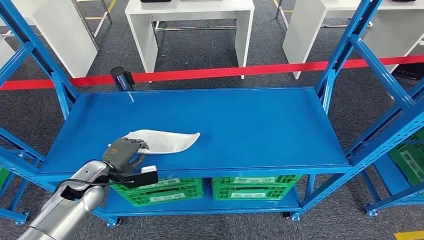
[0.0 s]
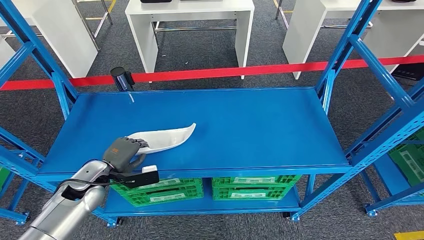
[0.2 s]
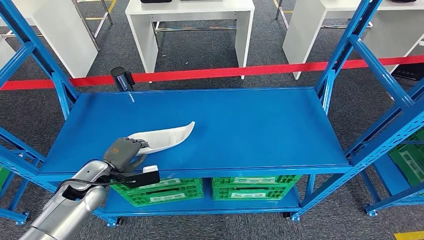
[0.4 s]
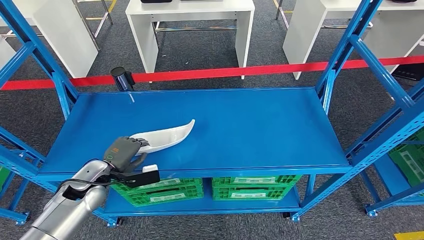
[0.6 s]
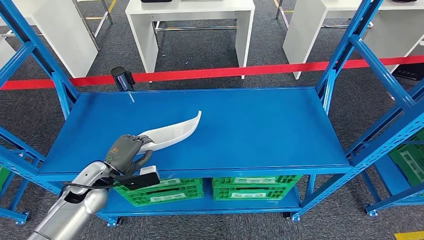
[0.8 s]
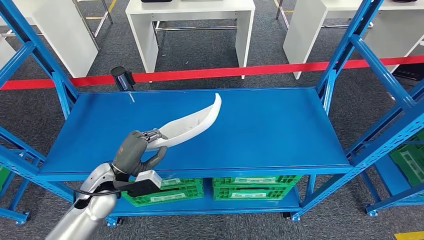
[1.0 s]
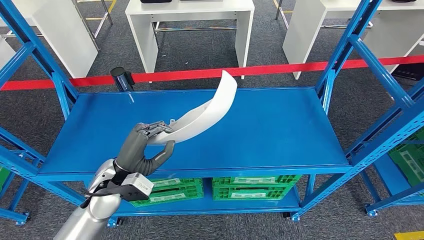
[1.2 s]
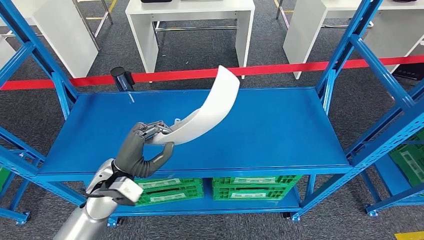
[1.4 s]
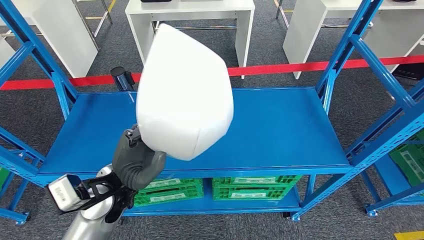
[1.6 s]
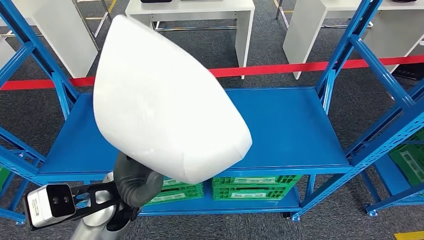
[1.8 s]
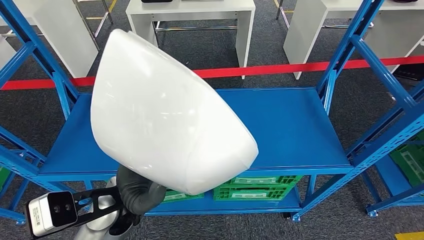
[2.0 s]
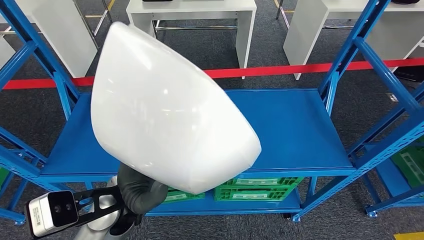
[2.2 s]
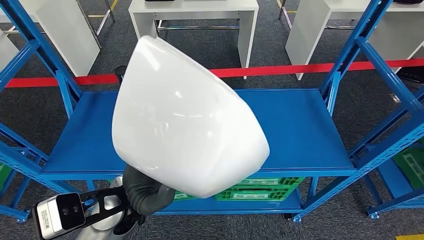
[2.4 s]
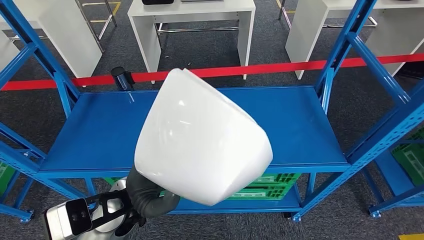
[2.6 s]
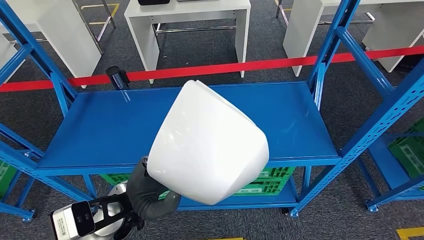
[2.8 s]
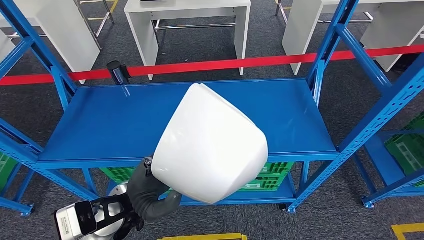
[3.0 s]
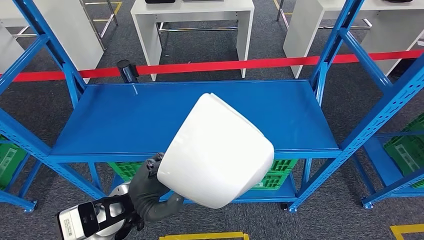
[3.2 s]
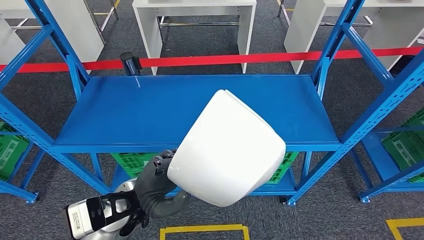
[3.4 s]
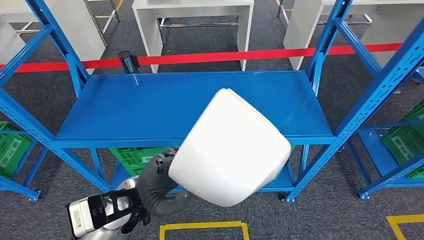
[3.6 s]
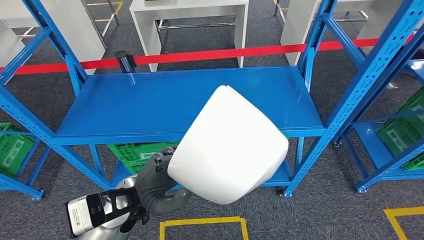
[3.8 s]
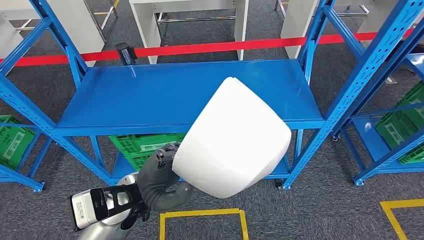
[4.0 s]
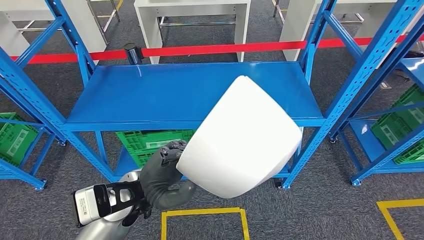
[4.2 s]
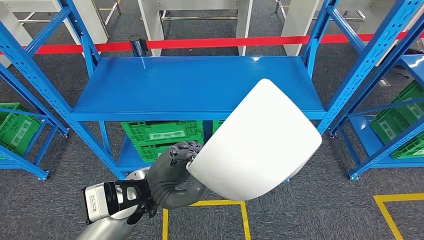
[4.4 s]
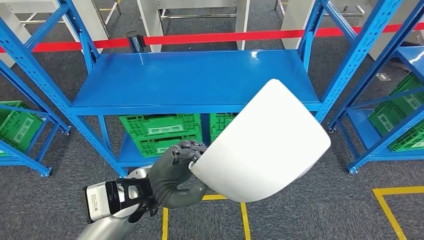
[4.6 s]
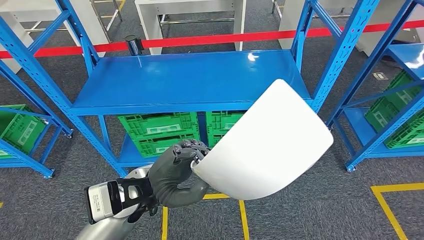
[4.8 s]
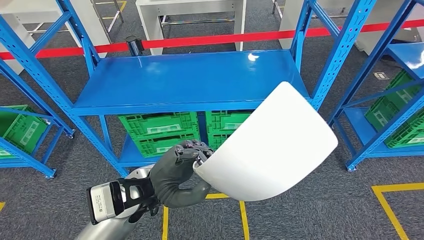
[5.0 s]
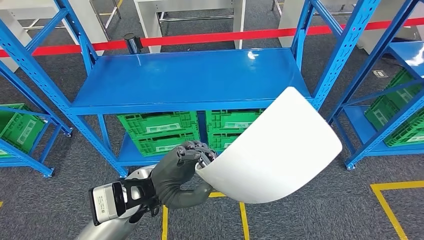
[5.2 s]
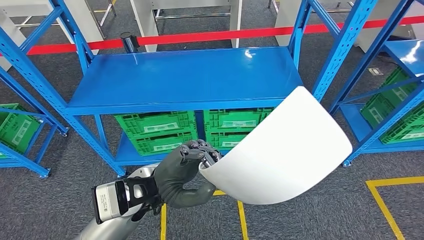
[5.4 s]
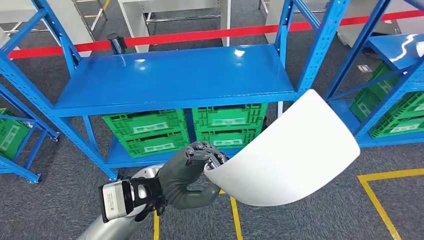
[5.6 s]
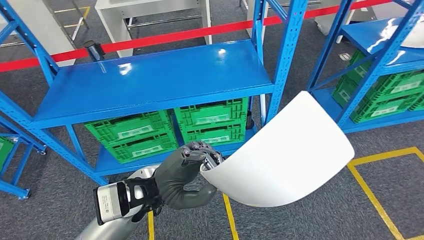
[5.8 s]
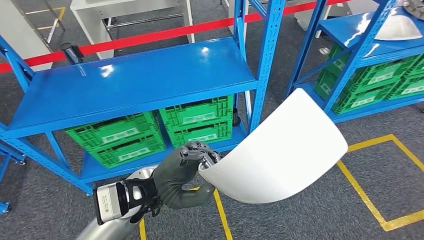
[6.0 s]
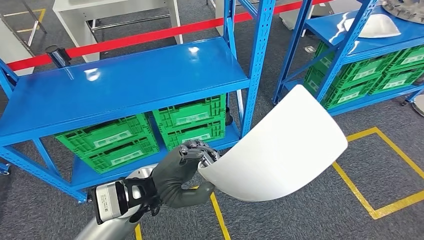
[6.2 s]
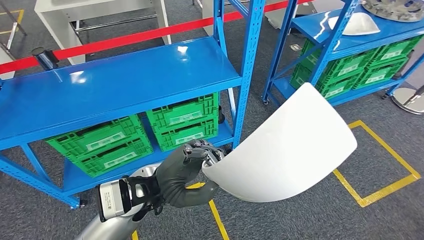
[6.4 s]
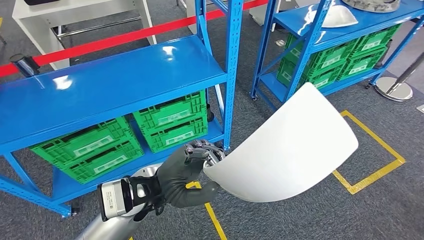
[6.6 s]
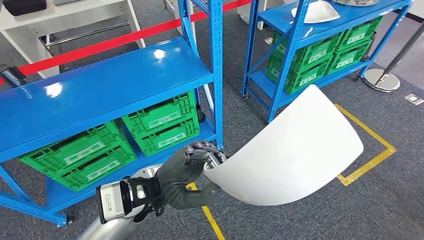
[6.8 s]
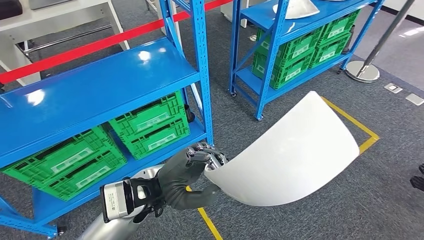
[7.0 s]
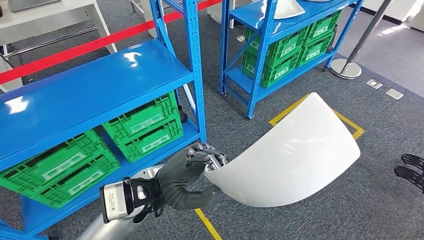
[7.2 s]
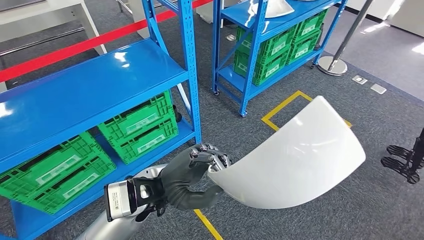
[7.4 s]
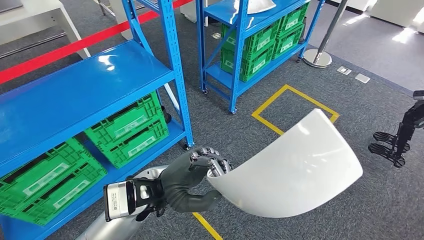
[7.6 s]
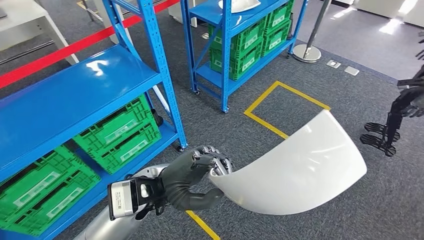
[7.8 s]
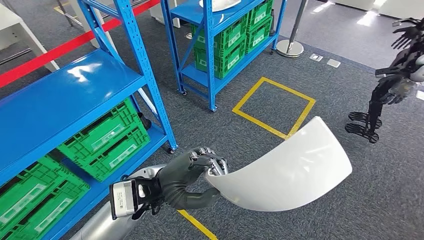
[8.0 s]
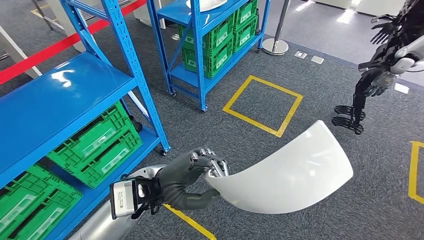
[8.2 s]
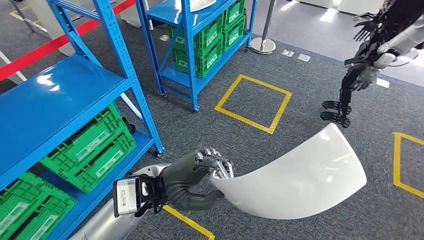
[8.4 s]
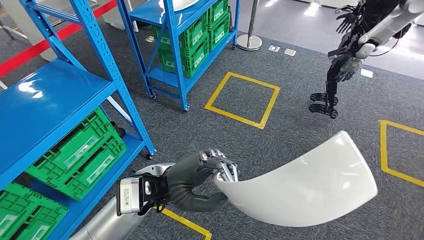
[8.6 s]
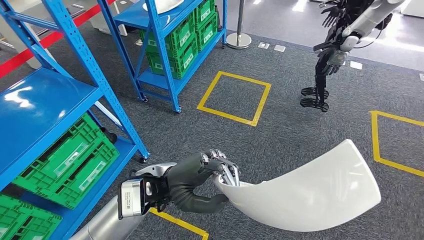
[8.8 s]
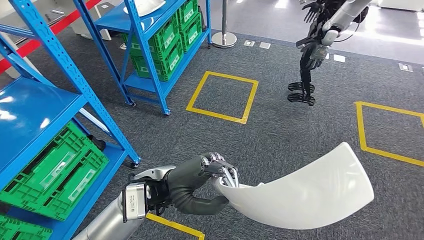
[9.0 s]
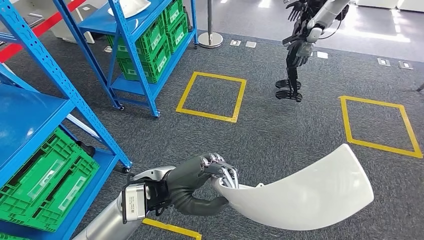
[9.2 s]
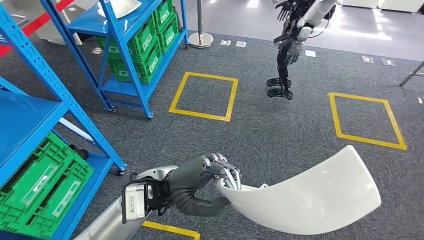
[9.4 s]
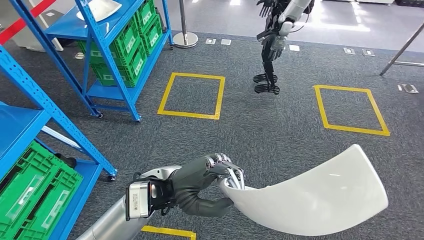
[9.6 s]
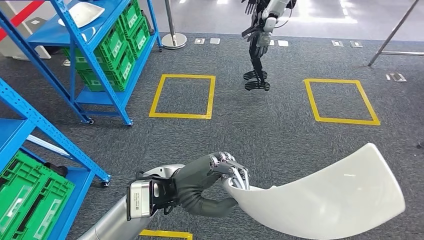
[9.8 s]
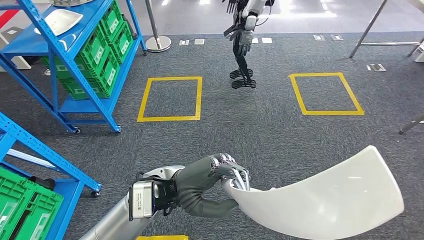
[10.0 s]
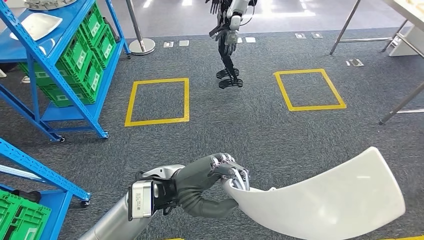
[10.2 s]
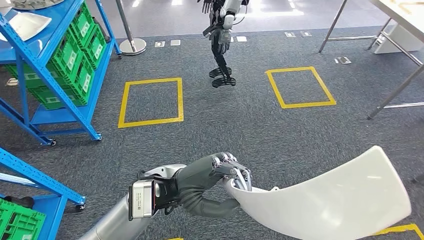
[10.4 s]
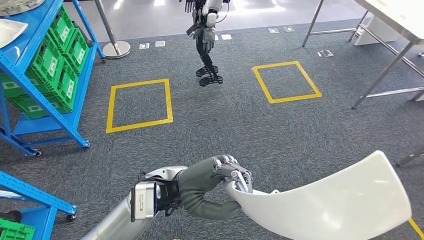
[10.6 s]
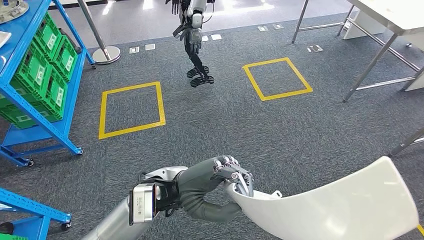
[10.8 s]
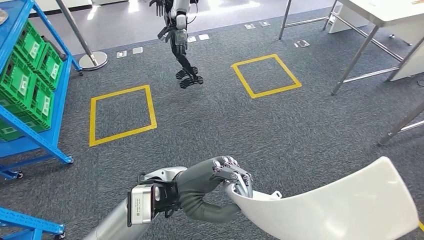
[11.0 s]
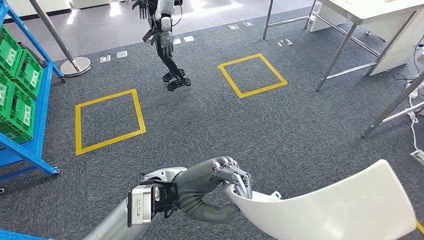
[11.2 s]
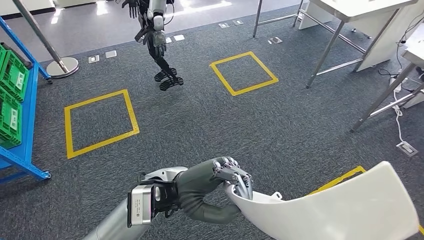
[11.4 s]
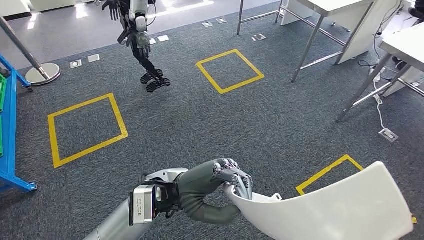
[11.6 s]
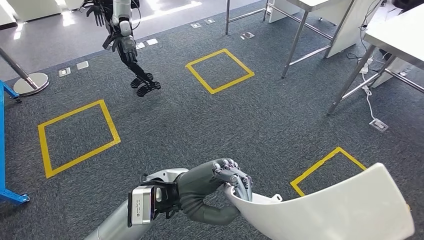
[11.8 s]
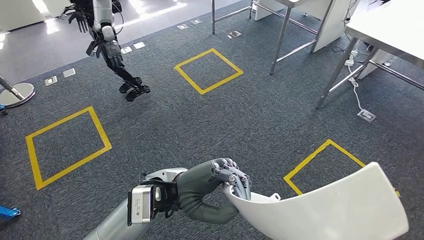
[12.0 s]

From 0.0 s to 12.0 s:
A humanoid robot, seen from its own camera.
Step, from 0.0 s to 2.2 s: Pick up the small parts from the shelf.

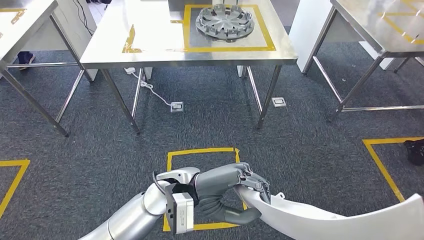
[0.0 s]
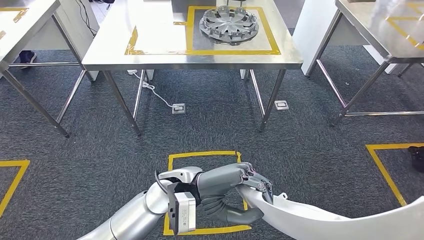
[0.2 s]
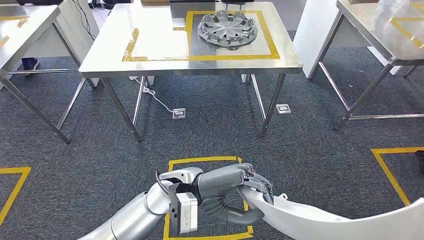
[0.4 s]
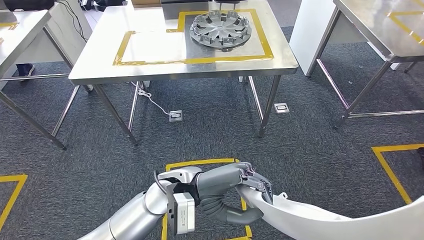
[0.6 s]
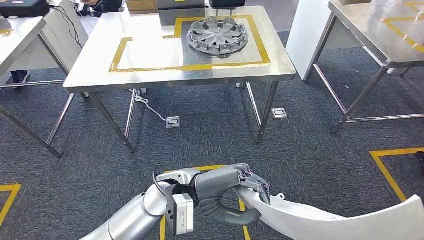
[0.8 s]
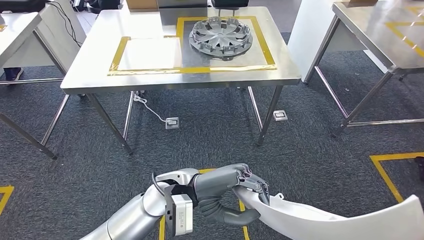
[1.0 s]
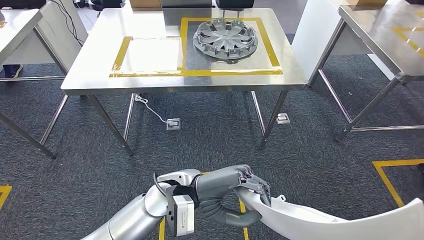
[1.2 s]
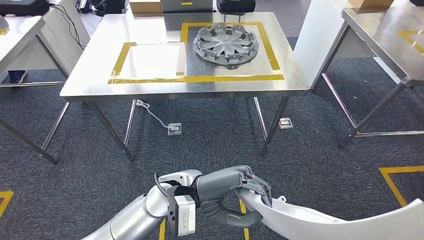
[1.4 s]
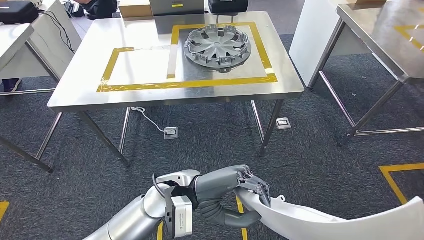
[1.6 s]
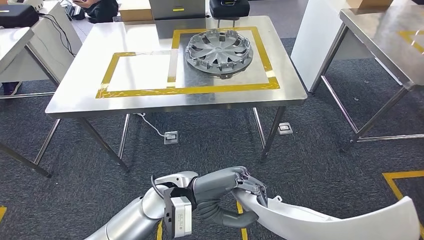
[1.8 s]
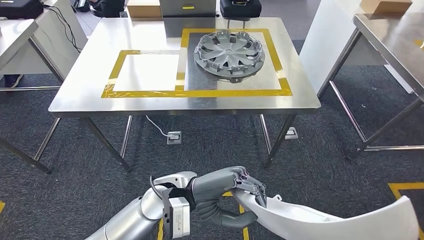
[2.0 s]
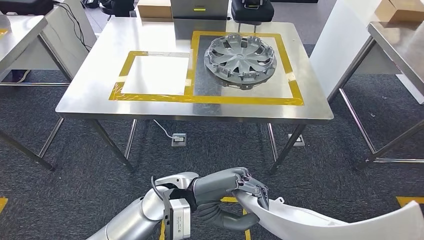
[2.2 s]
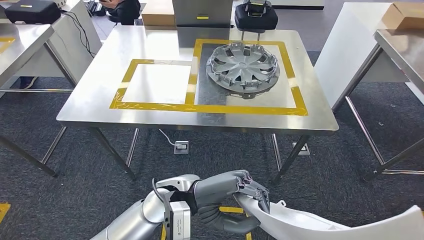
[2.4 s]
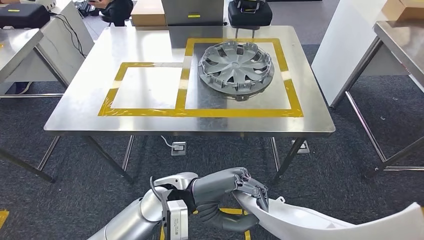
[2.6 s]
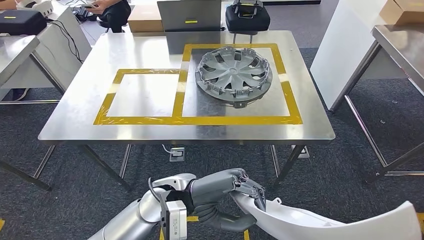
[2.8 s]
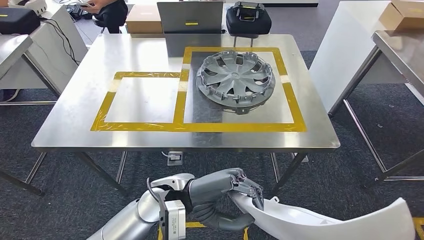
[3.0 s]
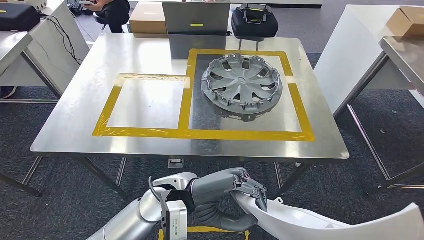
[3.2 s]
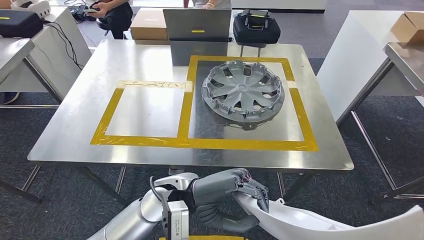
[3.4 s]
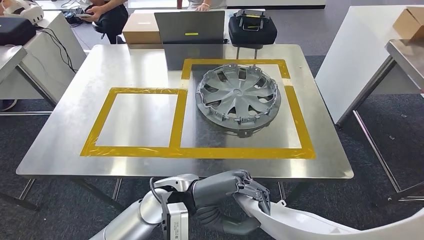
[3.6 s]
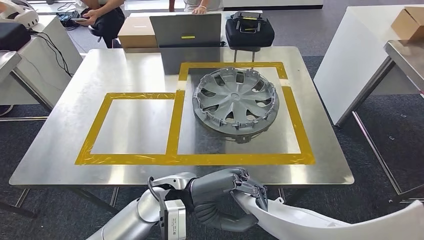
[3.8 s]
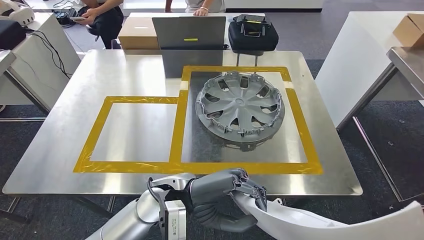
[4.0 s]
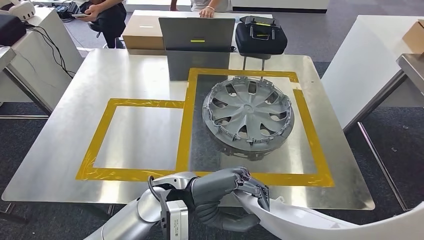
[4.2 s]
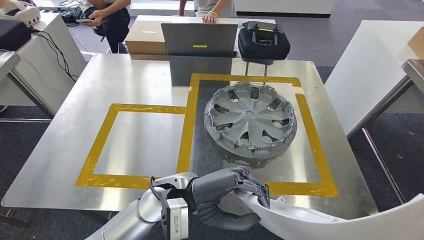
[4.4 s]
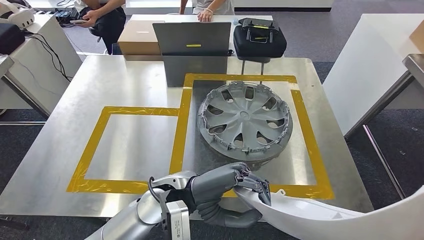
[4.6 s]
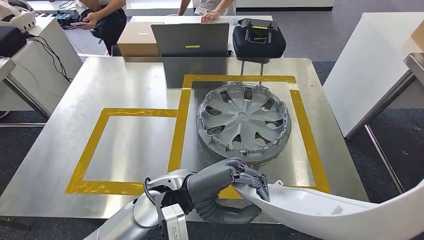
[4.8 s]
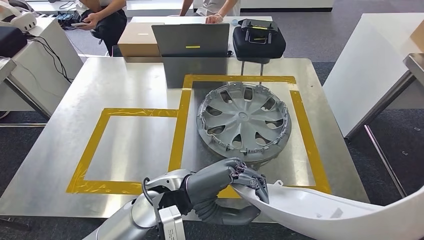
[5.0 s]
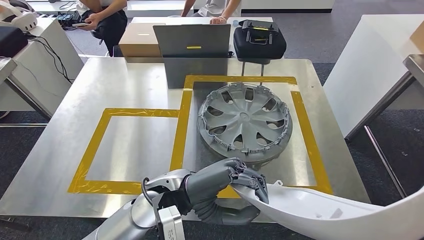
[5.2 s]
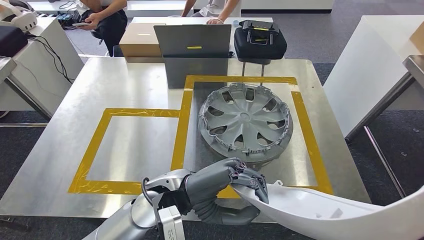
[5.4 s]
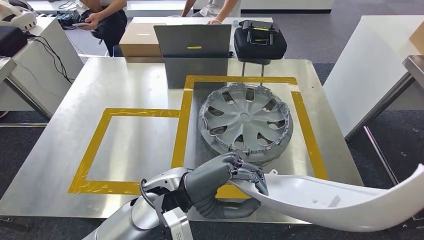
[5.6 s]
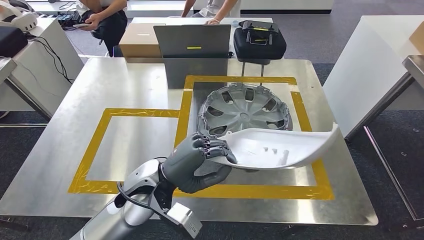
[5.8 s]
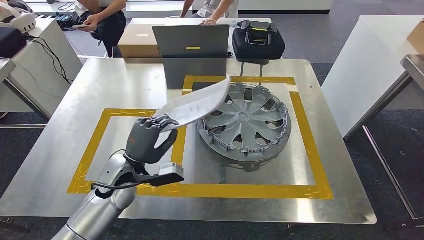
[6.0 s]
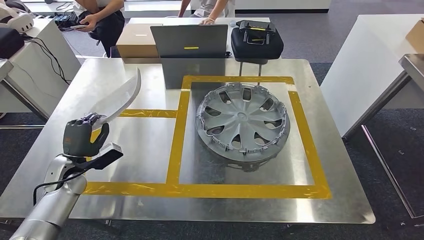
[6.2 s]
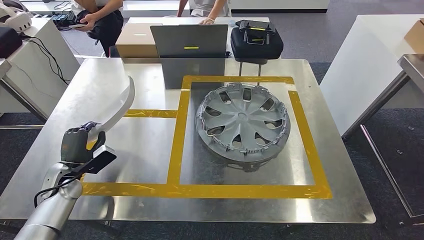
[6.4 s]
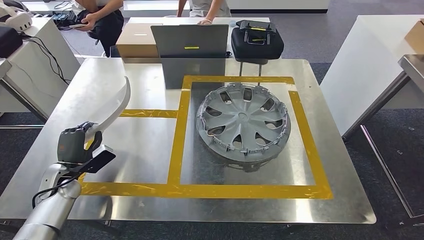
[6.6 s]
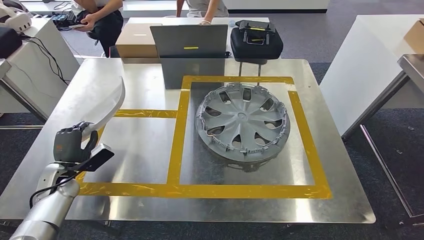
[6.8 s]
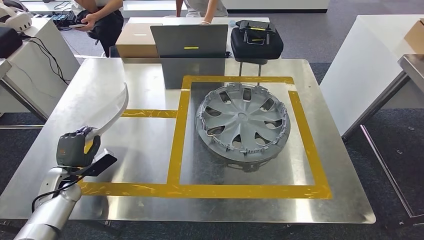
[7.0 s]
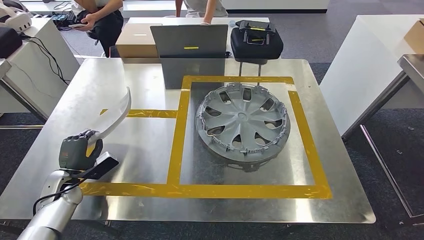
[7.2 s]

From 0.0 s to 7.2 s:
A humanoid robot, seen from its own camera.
Step, from 0.0 s to 5.2 s: Move the small parts to the workbench.
